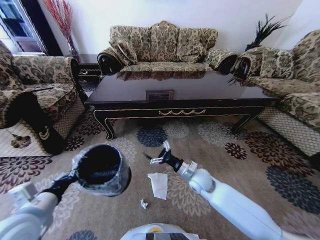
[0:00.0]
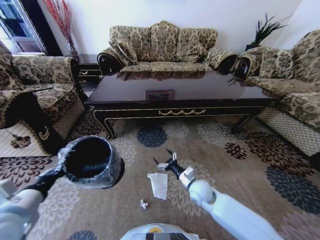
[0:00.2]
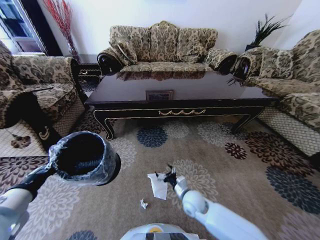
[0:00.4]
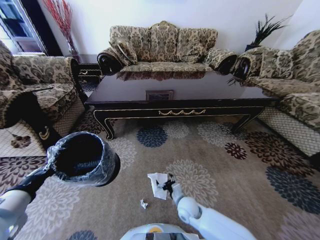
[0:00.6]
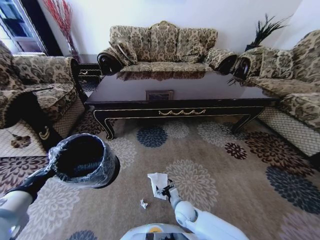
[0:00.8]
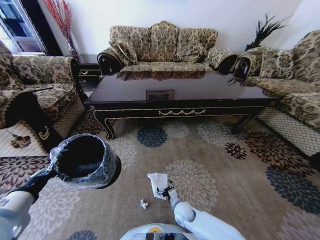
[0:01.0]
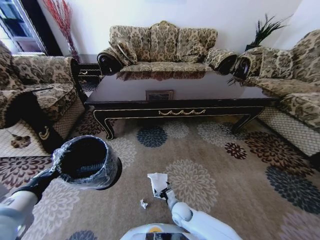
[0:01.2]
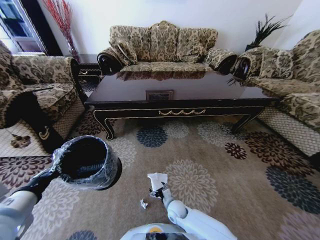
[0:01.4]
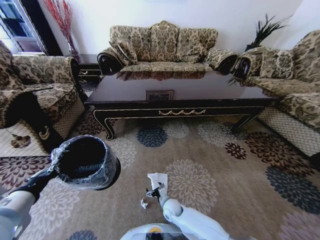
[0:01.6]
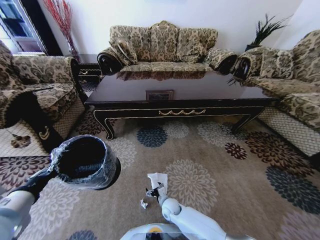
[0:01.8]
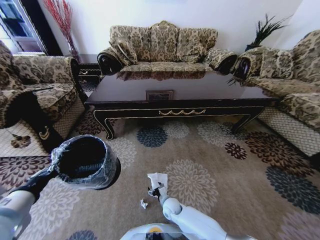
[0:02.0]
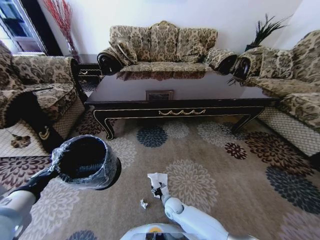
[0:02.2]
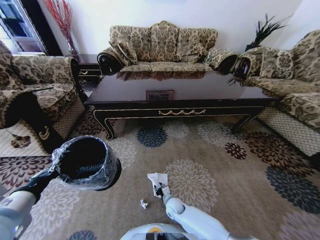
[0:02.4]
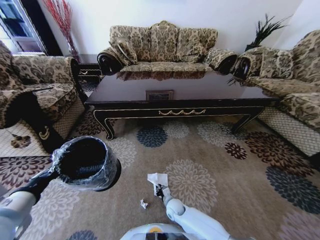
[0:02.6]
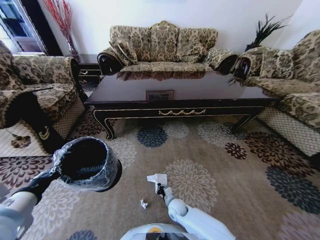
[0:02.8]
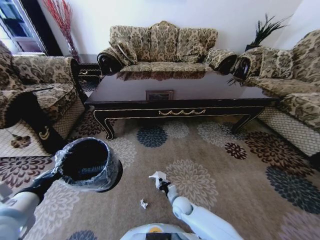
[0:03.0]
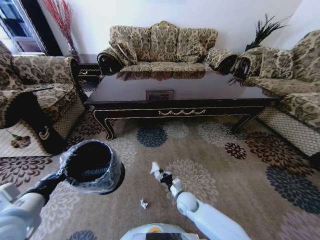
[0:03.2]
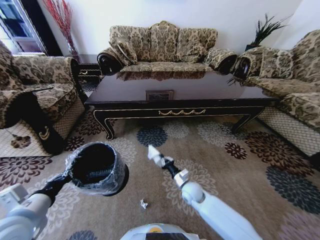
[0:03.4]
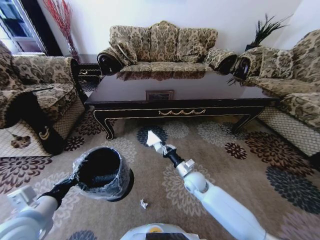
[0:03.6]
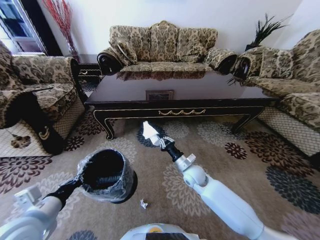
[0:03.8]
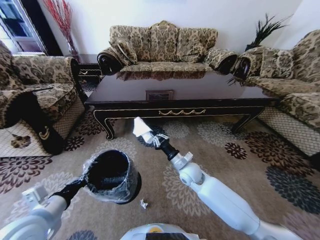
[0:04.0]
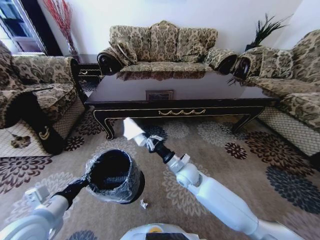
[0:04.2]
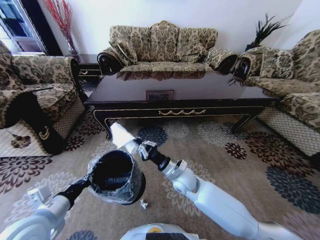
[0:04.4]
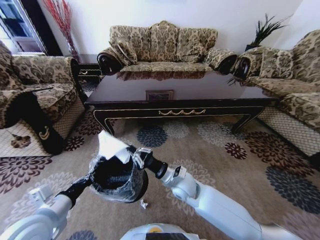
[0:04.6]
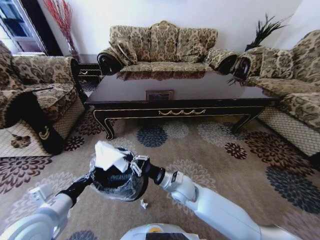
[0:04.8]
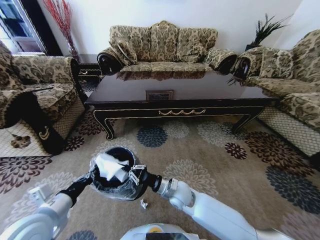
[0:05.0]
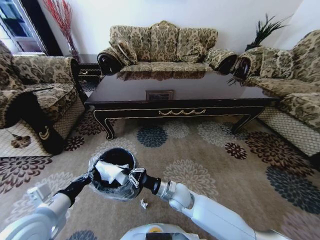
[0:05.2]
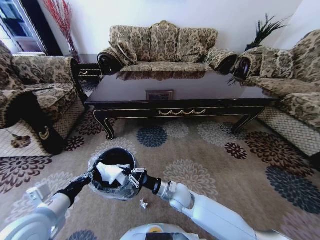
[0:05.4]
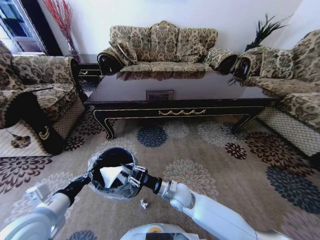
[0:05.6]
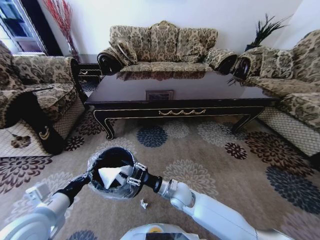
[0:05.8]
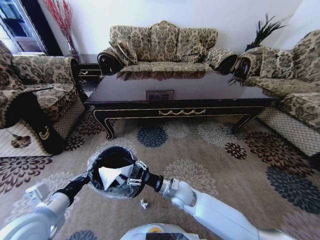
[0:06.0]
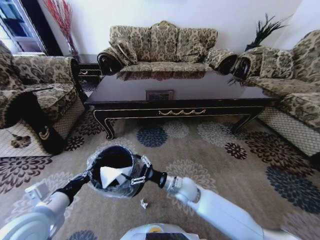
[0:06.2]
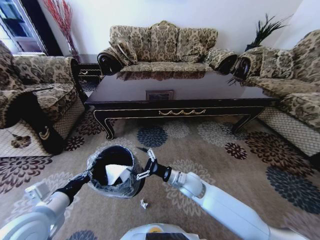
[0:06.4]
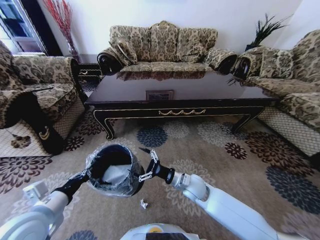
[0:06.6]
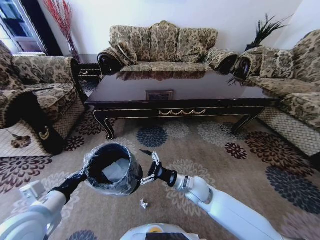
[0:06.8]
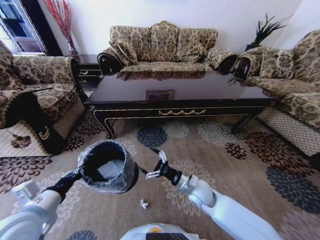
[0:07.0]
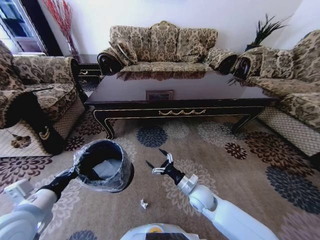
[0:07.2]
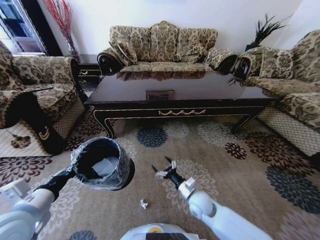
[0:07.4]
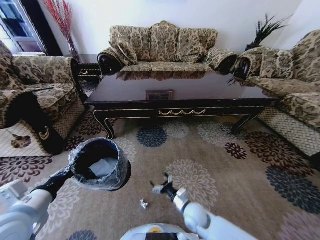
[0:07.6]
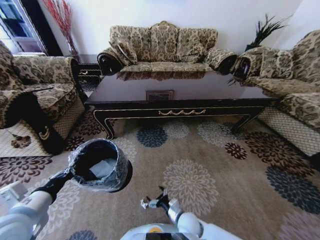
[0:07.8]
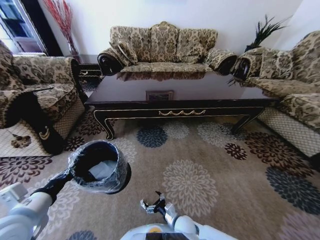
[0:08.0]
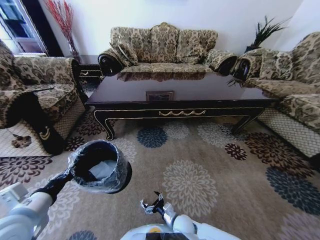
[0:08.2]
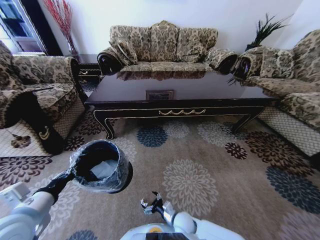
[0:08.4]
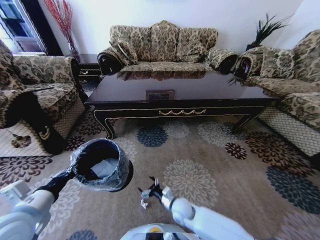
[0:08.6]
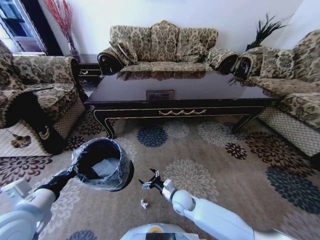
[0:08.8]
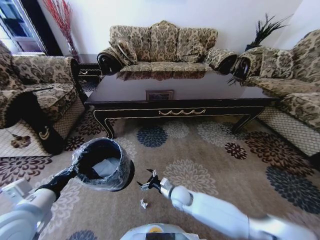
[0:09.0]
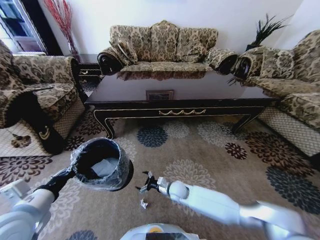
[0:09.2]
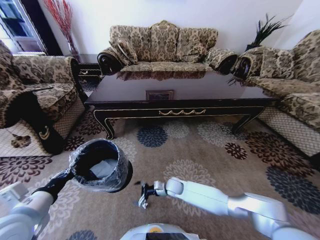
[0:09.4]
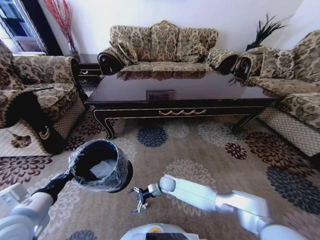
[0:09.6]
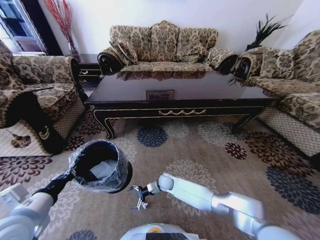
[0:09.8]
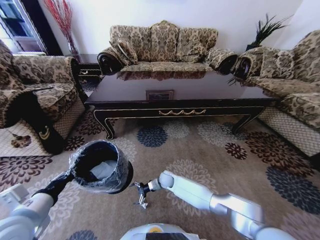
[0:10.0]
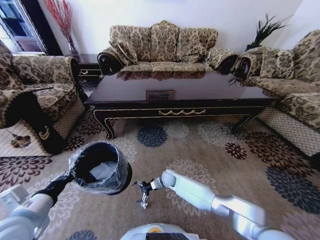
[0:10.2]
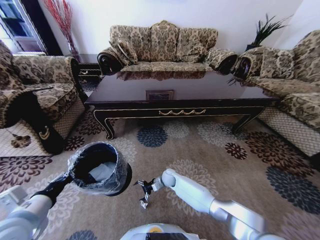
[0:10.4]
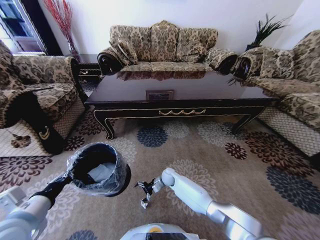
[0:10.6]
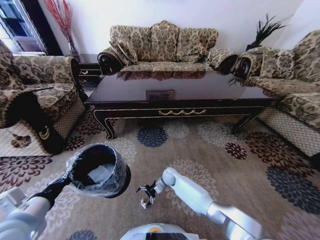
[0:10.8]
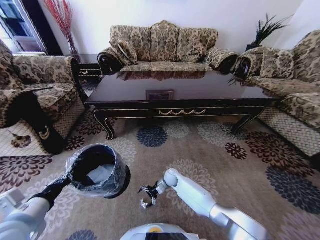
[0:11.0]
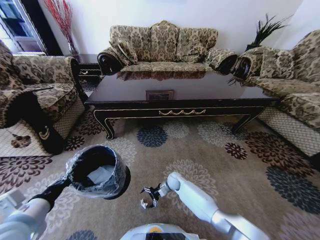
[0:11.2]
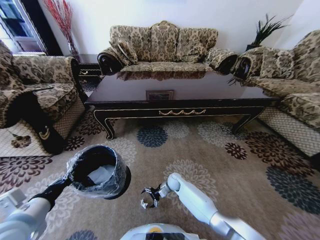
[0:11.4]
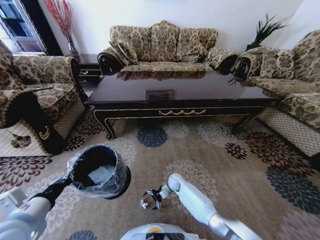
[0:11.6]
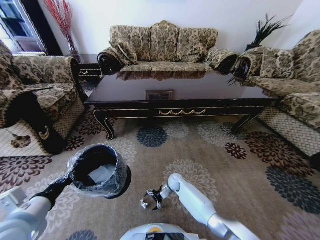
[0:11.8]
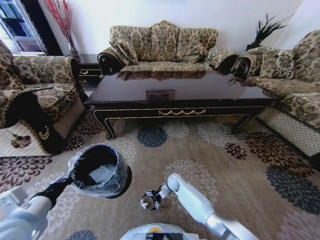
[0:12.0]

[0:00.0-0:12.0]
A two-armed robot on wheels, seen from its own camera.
Task of the whole recording: Move to the front of the table and pick up the trash from the floor, then place it into the trash bin.
0:00.0 to 0:01.6: The right gripper travels downward and to the left by about 25 cm.
0:01.6 to 0:03.0: The right gripper moves some 5 cm, and closes its fingers.
0:03.0 to 0:04.4: The right gripper goes about 20 cm upward, while the left gripper moves some 5 cm.
0:04.4 to 0:06.0: The right gripper travels downward by about 5 cm, and opens up.
0:06.0 to 0:07.6: The right gripper shifts about 10 cm downward, backward and to the right, and opens.
0:07.6 to 0:09.0: The right gripper shifts approximately 10 cm forward.
0:09.0 to 0:10.4: The right gripper moves forward and downward, about 15 cm.
0:10.4 to 0:12.0: The right gripper changes place by some 5 cm.

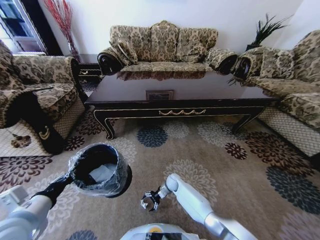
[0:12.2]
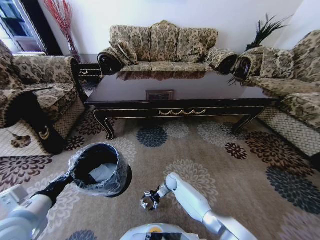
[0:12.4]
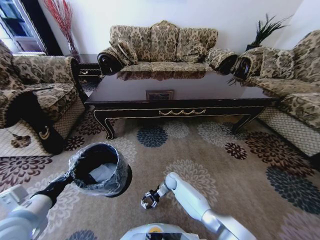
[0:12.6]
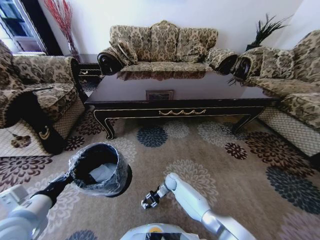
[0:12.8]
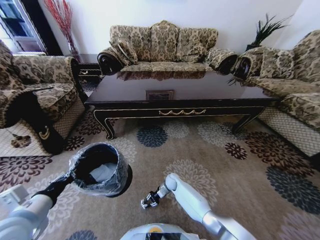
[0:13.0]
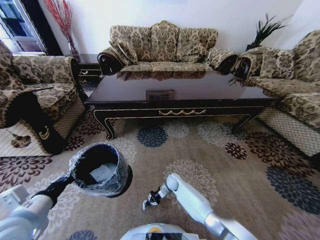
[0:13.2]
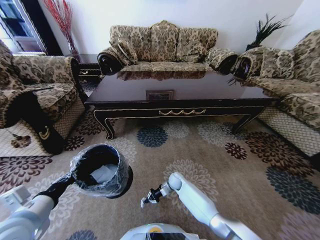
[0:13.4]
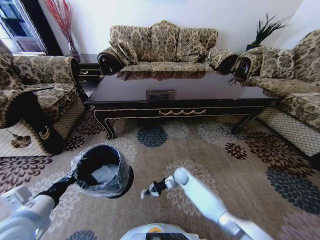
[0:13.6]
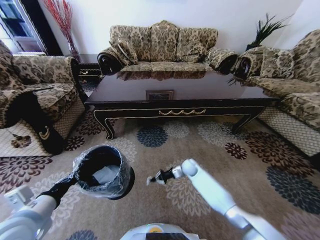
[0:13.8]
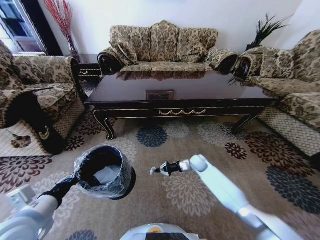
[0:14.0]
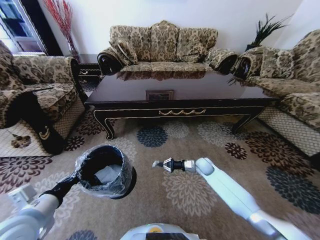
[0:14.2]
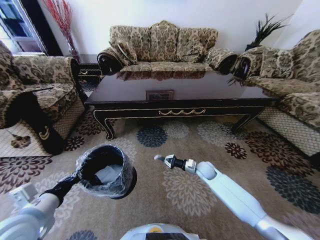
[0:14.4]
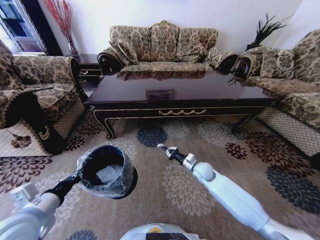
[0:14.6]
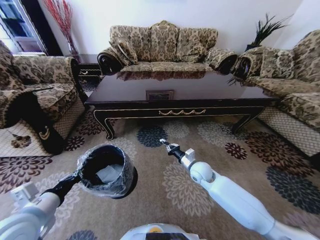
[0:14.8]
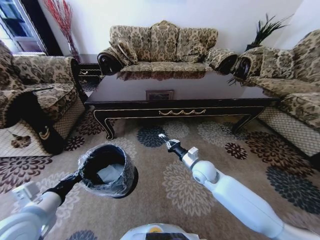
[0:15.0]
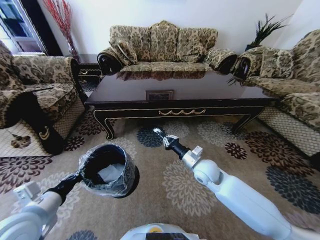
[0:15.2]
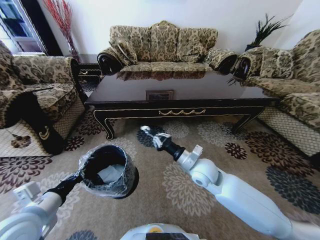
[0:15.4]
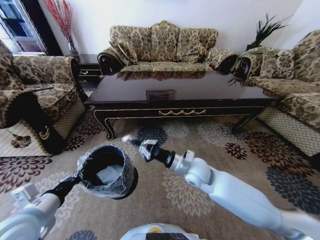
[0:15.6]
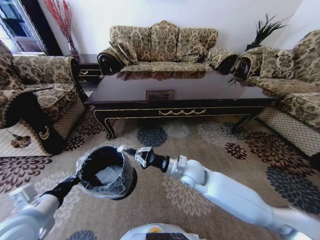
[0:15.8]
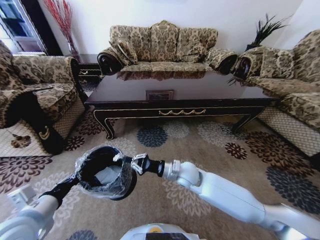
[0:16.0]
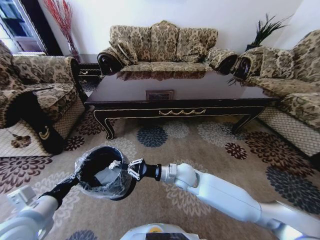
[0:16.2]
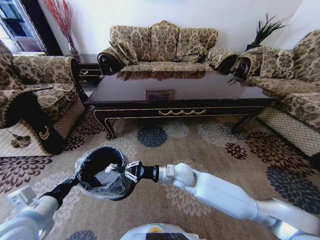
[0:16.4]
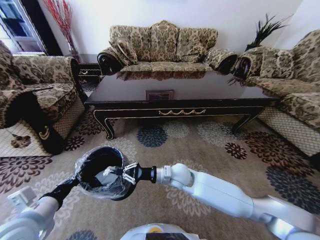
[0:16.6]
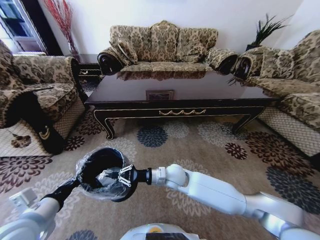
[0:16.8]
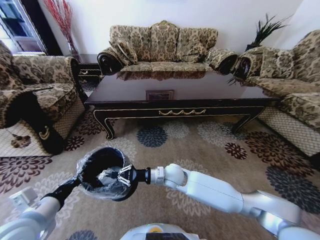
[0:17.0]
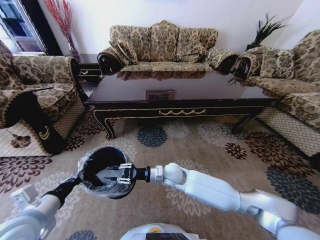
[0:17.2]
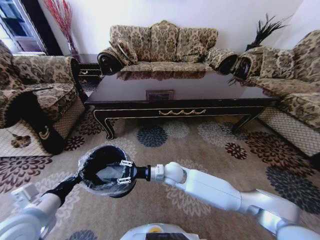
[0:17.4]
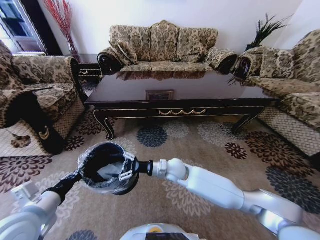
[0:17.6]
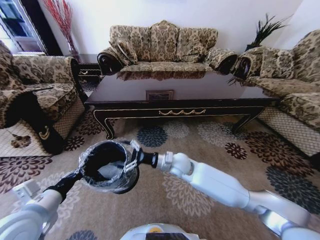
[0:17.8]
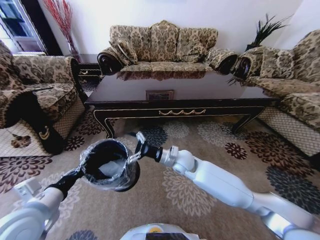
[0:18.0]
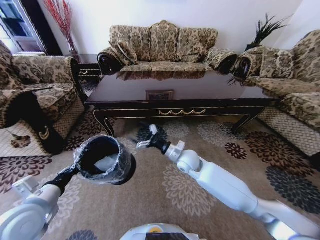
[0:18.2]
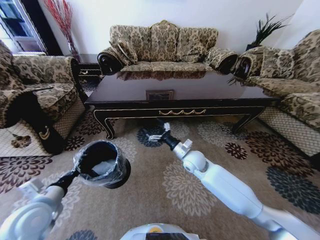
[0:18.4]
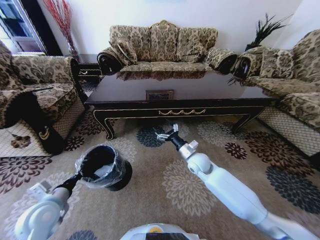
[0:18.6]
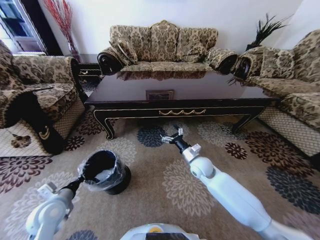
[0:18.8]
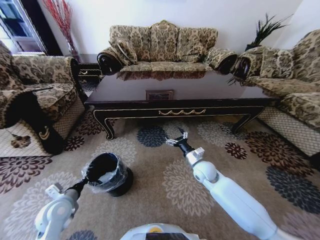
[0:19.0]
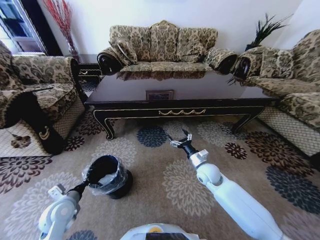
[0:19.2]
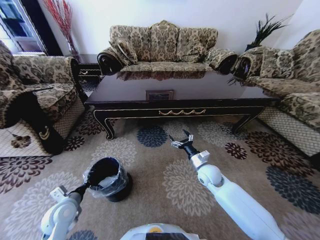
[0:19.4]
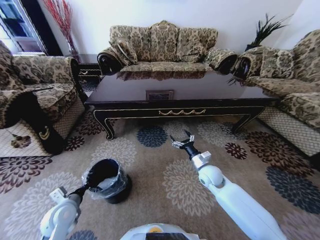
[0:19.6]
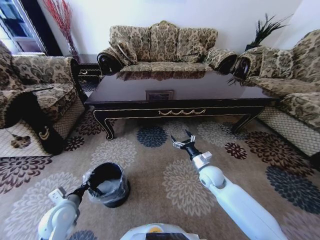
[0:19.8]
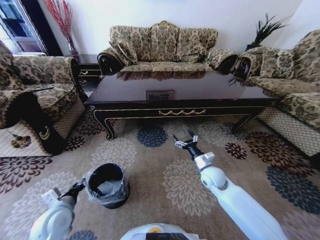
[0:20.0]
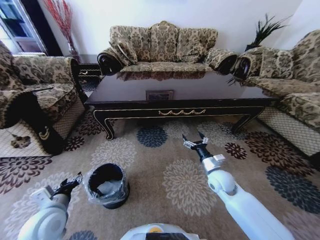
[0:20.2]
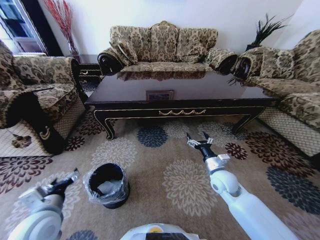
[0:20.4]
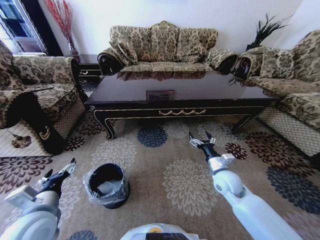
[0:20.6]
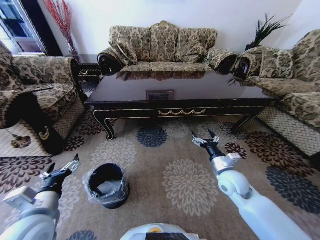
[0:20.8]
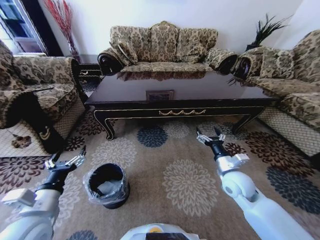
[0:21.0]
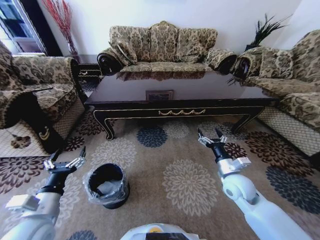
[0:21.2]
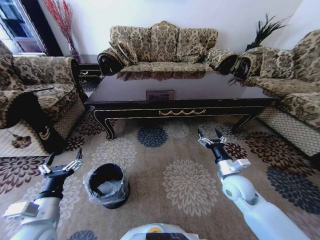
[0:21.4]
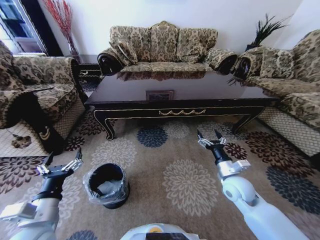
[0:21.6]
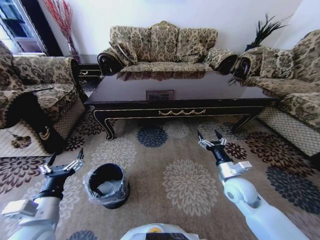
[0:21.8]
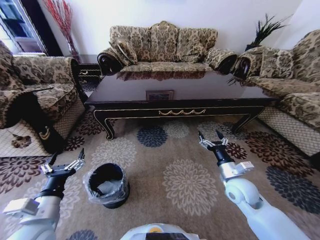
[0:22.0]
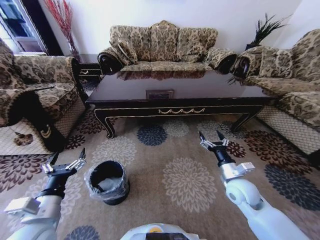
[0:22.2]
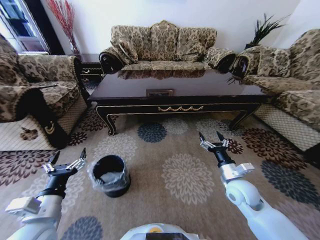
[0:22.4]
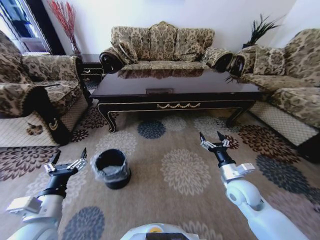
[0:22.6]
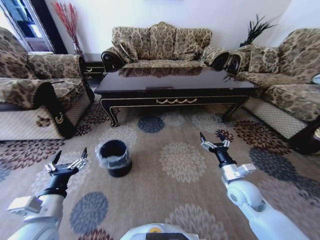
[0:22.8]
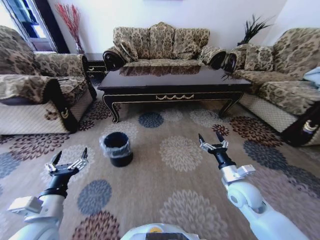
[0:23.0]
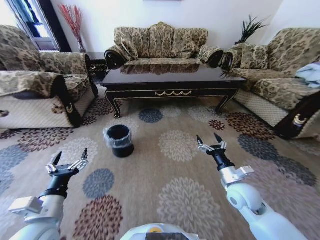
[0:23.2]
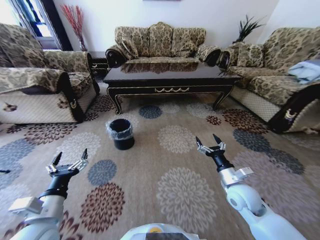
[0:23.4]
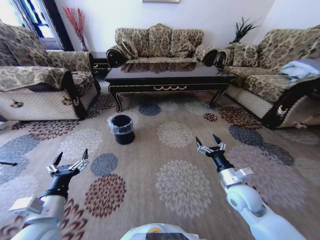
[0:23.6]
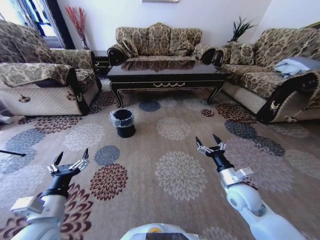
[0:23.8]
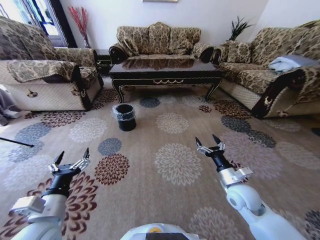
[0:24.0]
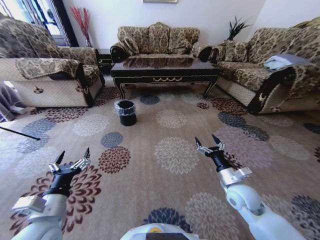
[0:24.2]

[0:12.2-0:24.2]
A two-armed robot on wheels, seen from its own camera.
Task of the whole recording: Move to the front of the table and pick up the trash from the floor, then place it into the trash bin.
0:12.2 to 0:13.8: The right gripper travels upward and to the right by some 15 cm, and closes.
0:13.8 to 0:15.2: The right gripper moves upward and backward, approximately 20 cm.
0:15.2 to 0:16.6: The right gripper shifts approximately 10 cm to the left.
0:16.6 to 0:18.2: The right gripper shifts some 5 cm forward and to the right, and opens.
0:18.2 to 0:19.8: The right gripper travels to the right and downward by approximately 15 cm, while the left gripper travels downward by roughly 15 cm.
0:19.8 to 0:21.2: The right gripper travels backward, upward and to the right by about 10 cm, while the left gripper heads upward and backward, covering some 10 cm, and opens.
